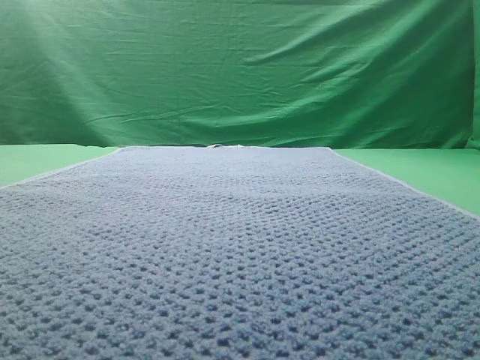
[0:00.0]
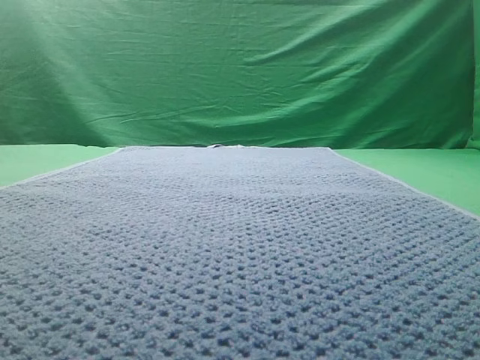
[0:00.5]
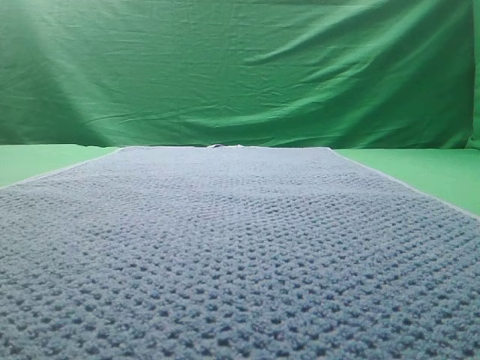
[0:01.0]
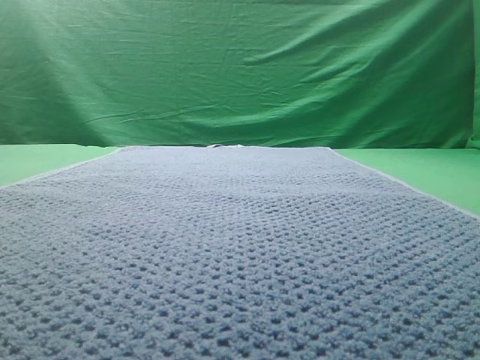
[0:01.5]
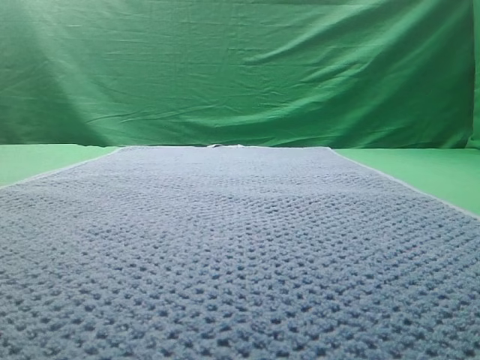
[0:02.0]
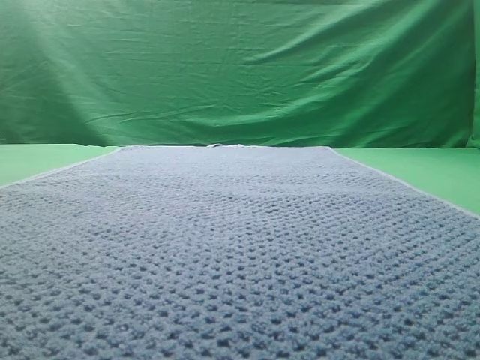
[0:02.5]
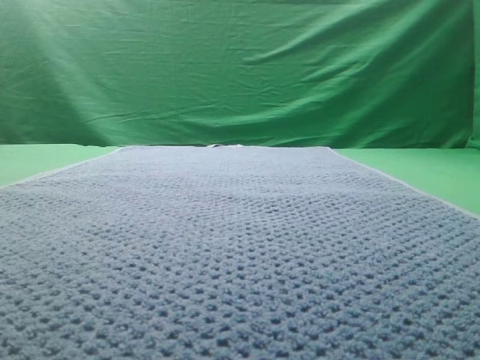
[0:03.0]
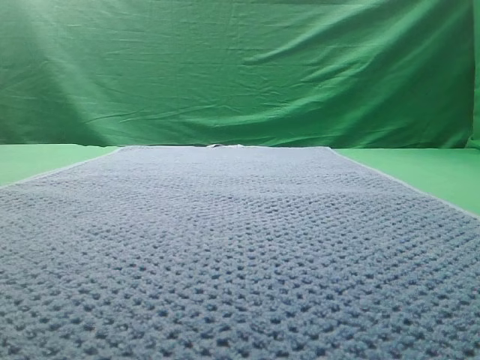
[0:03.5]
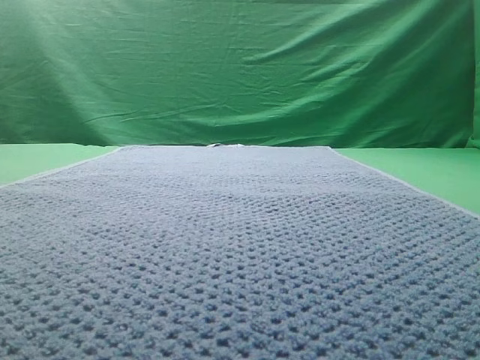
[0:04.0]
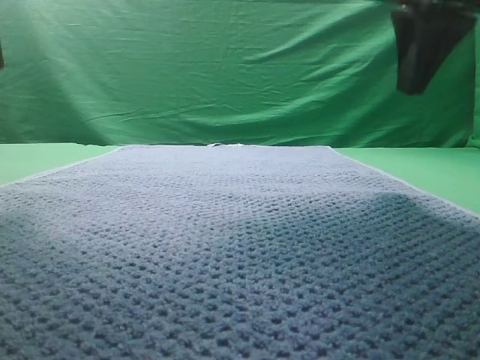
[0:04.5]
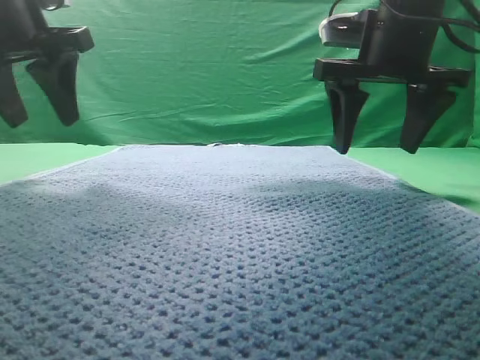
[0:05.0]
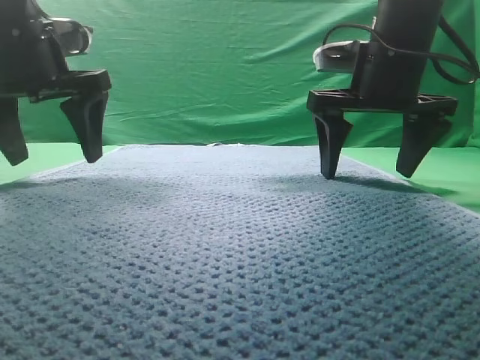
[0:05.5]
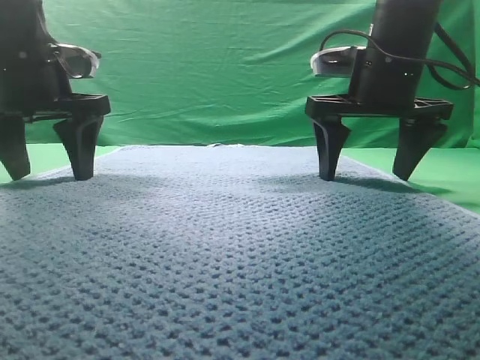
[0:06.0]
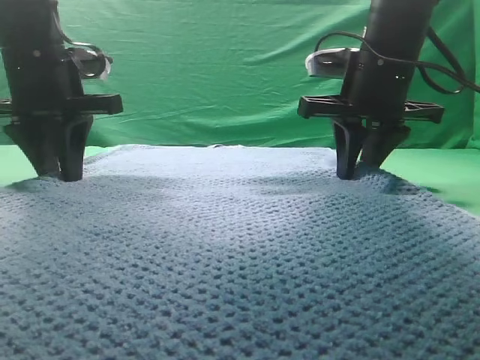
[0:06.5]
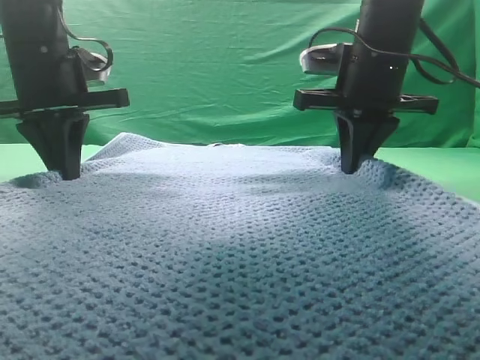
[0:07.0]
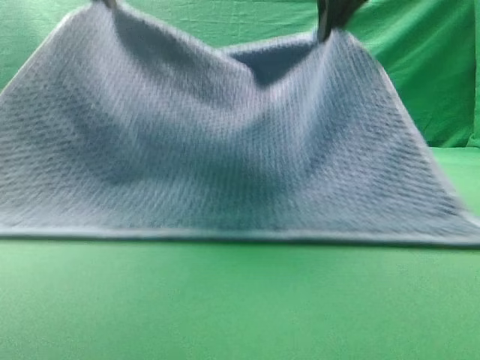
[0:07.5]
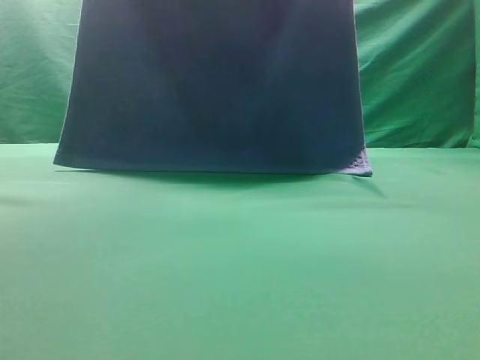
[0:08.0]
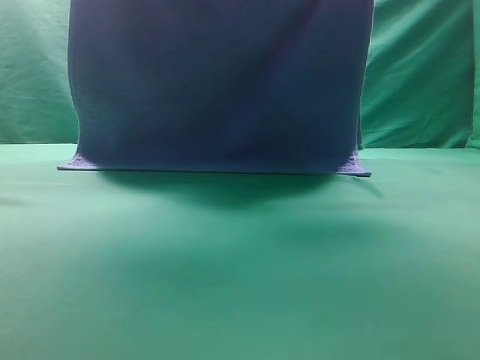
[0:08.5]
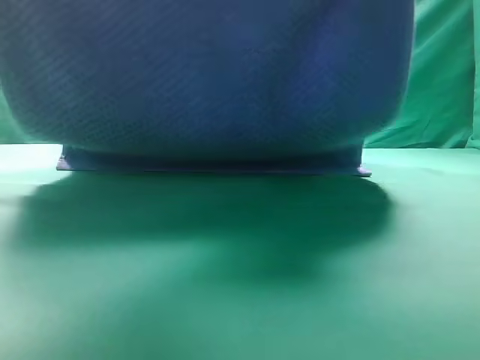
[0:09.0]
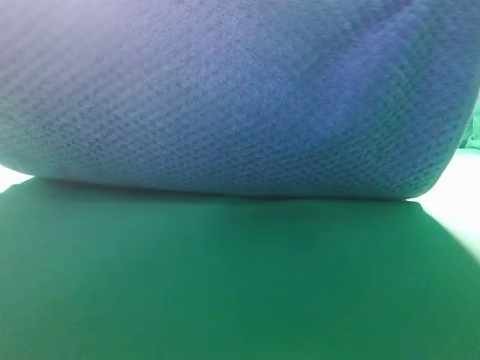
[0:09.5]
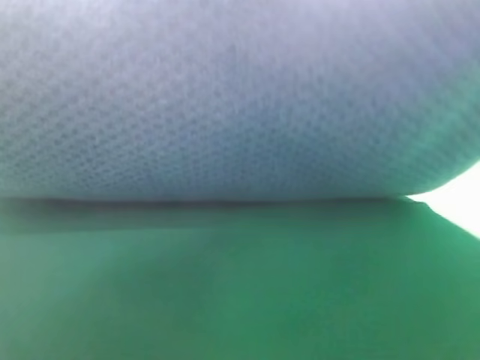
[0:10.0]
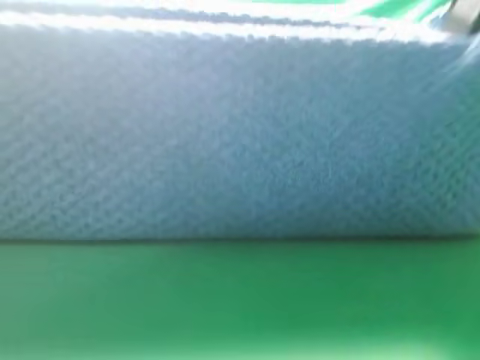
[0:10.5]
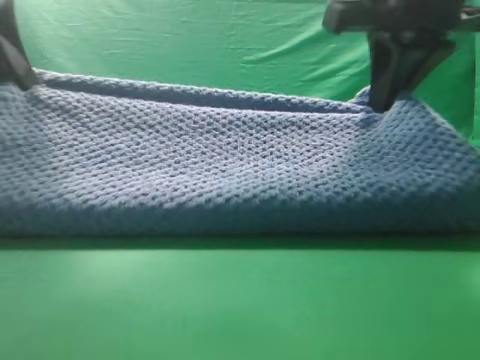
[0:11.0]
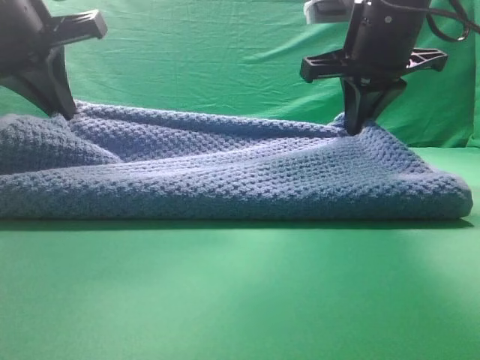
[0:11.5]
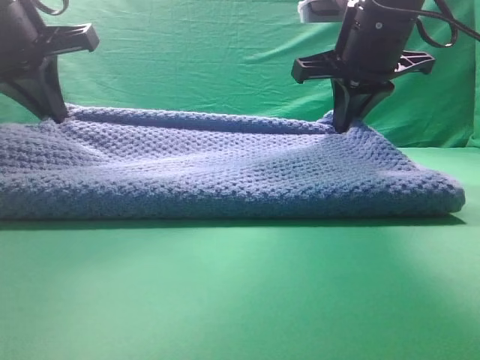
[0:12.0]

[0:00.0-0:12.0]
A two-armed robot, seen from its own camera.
Task of the whole recording: fold the towel on the table twice.
Step, 0:00.0 to 0:07.5: pick up the towel with two arm.
